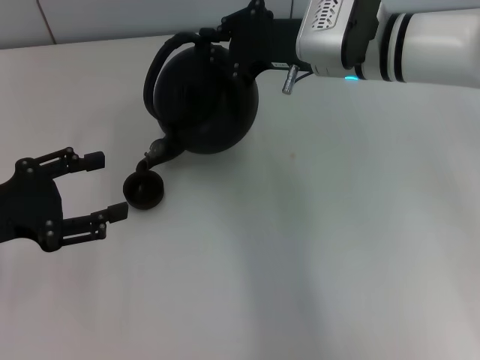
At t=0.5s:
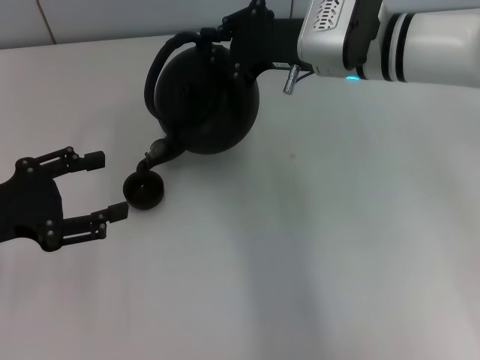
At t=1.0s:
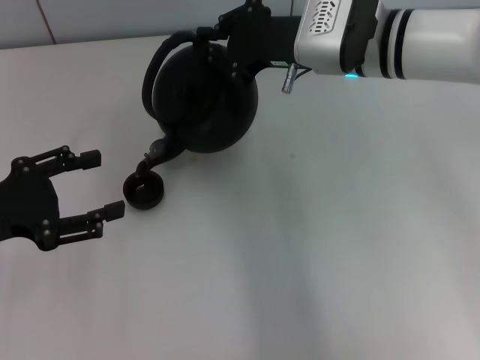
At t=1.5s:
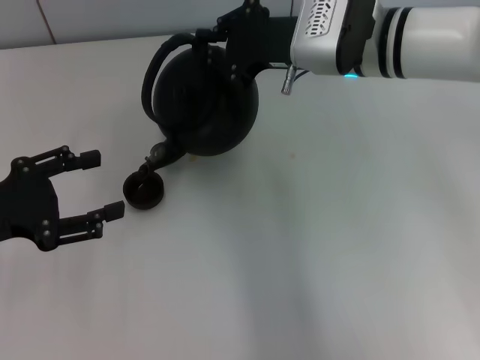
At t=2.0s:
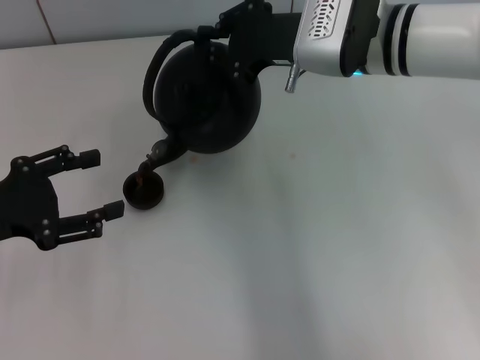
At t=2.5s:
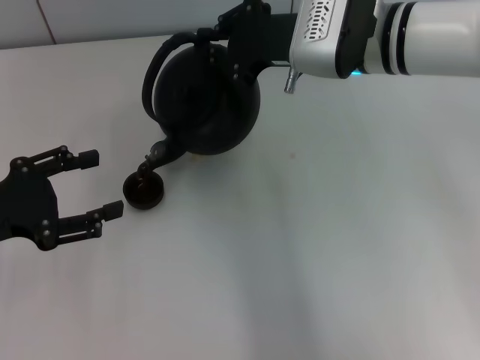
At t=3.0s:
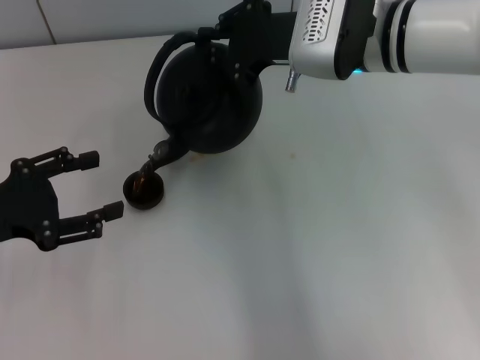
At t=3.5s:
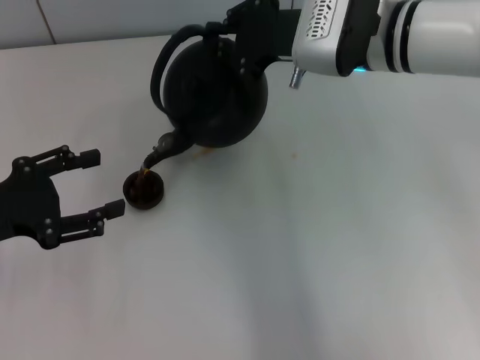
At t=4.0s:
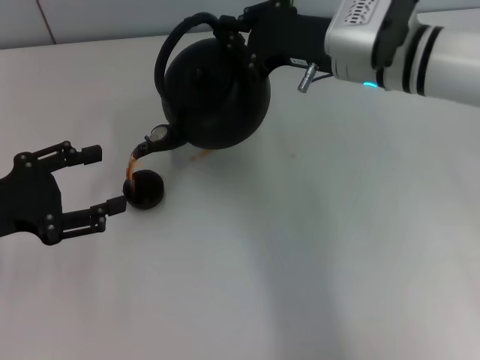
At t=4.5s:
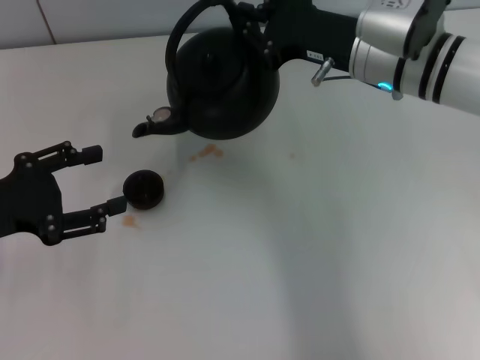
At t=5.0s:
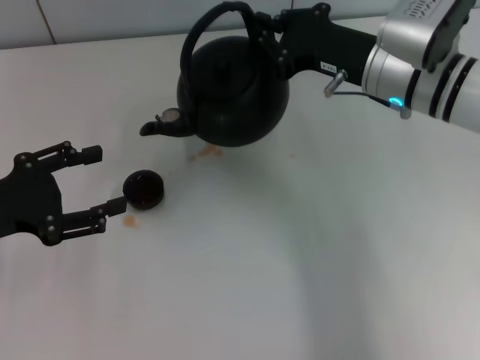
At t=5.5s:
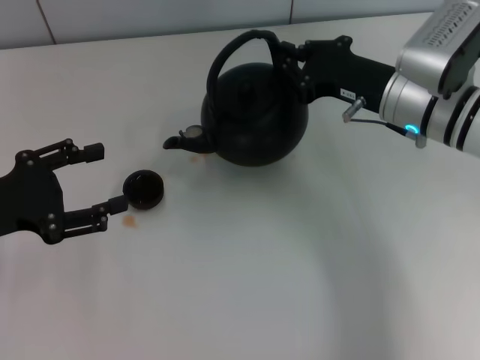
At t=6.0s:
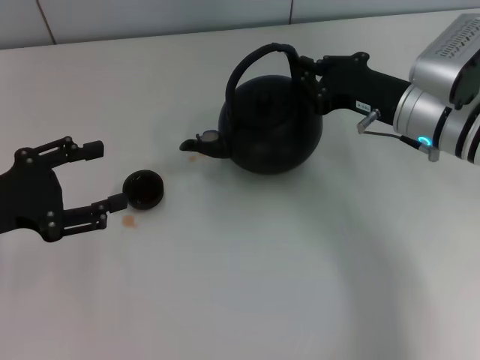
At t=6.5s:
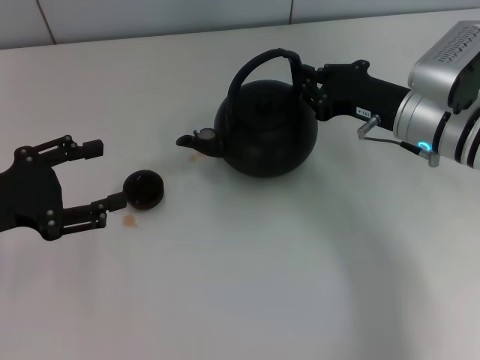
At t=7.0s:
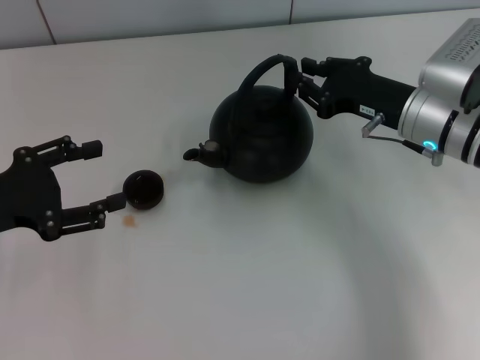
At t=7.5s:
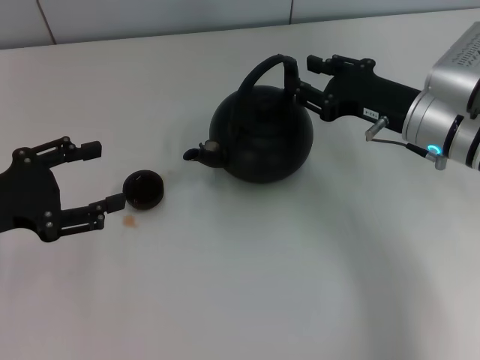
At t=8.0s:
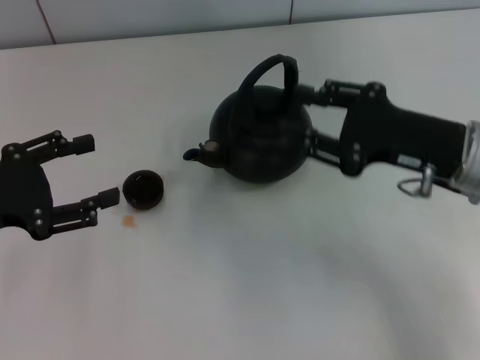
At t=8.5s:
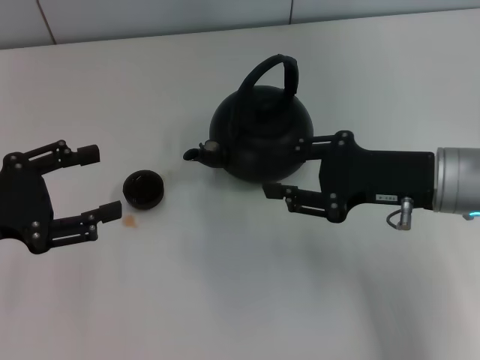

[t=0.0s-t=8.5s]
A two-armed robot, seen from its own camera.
Task of the whole recording: Grasp the handle of the teapot with one hand and pour tea into the teacup.
Step, t=5.0s to t=7.5s: Put down the teapot with the right gripper.
t=0.0s to t=4.0s: The grippers move only a little.
t=4.0s to t=6.5s: The right gripper shifts some 10 cm downward and to the right.
t=6.5s to t=8.5s: The right gripper shifts approximately 5 cm backward, and opens up.
